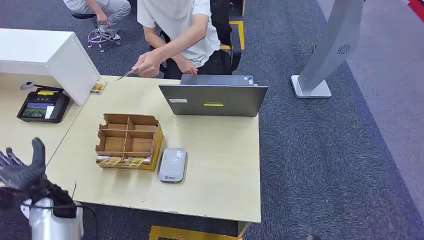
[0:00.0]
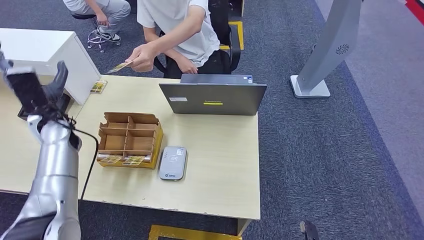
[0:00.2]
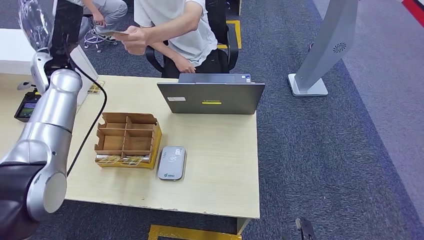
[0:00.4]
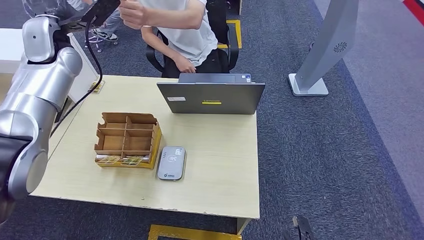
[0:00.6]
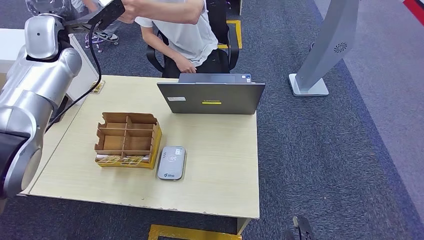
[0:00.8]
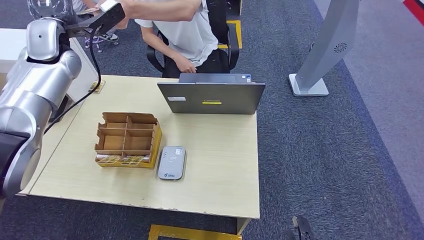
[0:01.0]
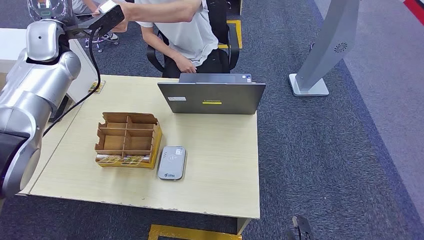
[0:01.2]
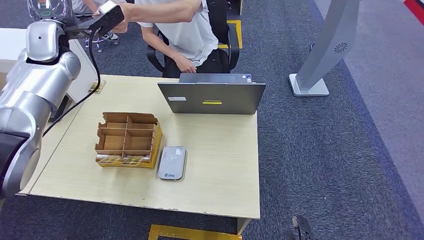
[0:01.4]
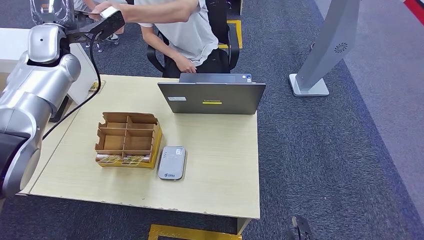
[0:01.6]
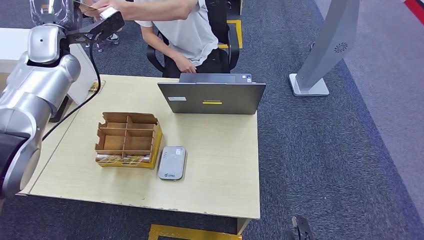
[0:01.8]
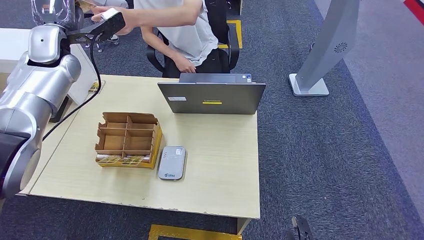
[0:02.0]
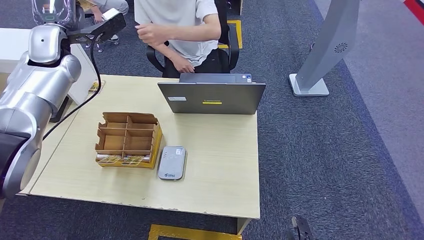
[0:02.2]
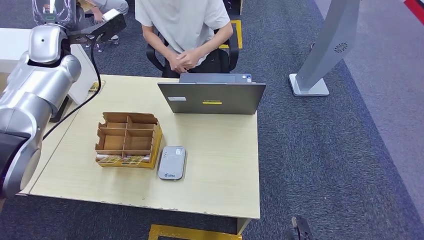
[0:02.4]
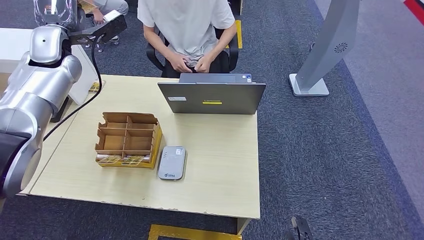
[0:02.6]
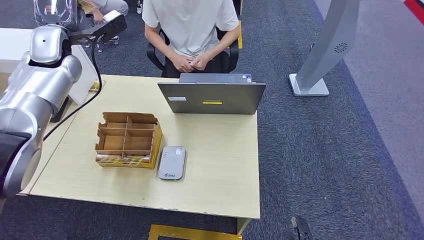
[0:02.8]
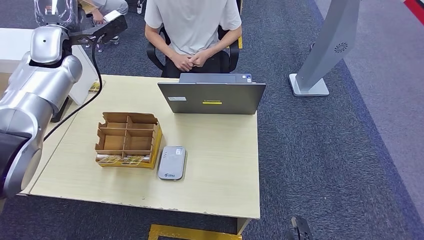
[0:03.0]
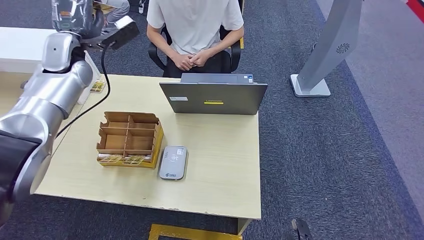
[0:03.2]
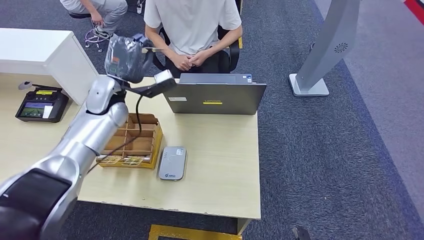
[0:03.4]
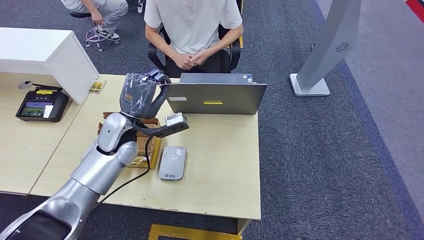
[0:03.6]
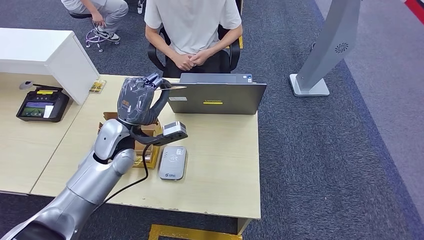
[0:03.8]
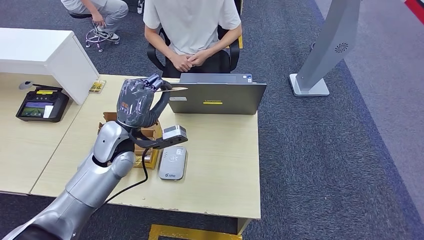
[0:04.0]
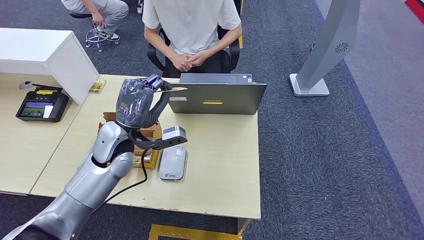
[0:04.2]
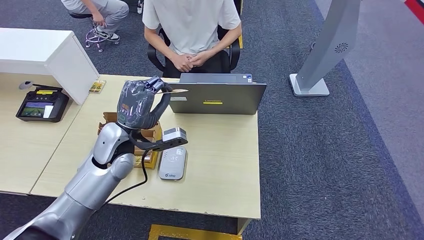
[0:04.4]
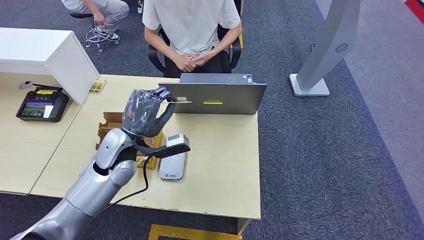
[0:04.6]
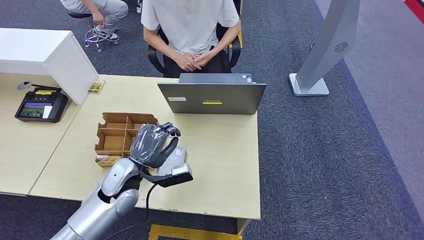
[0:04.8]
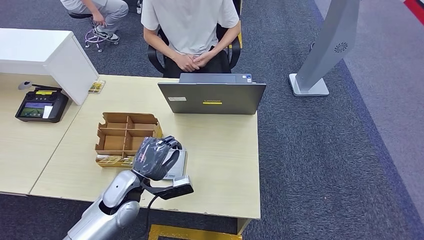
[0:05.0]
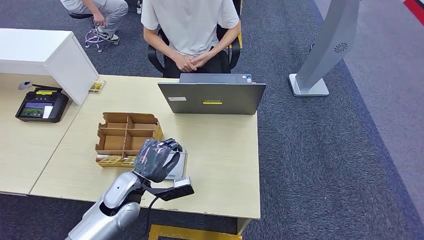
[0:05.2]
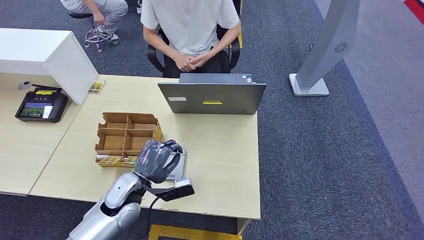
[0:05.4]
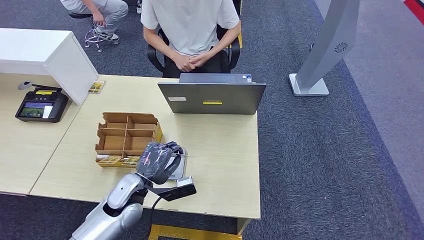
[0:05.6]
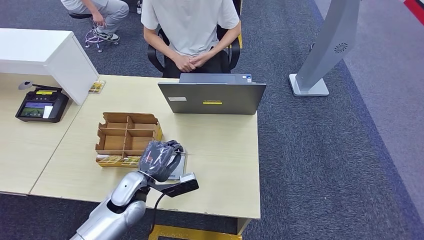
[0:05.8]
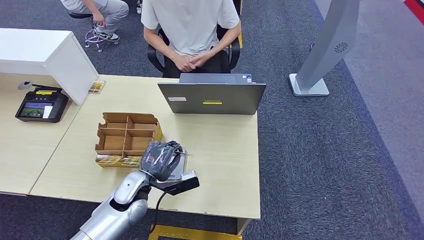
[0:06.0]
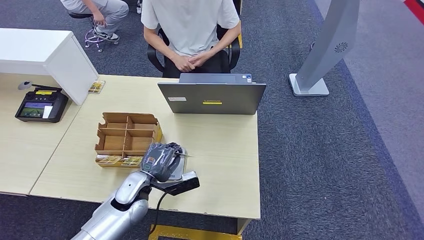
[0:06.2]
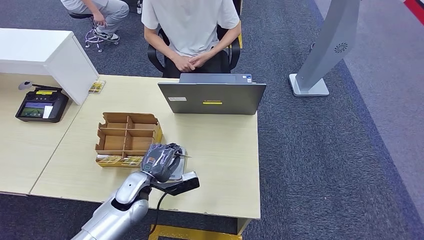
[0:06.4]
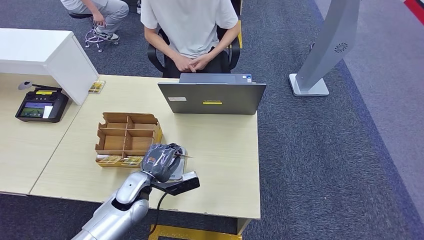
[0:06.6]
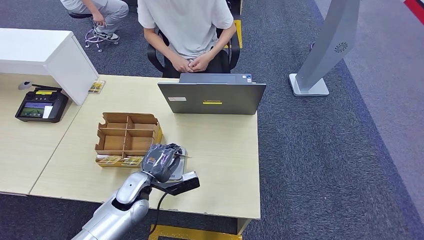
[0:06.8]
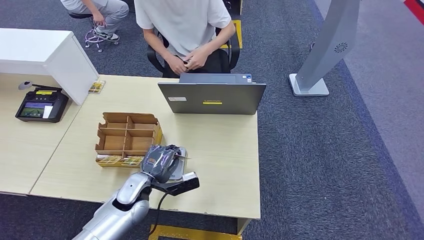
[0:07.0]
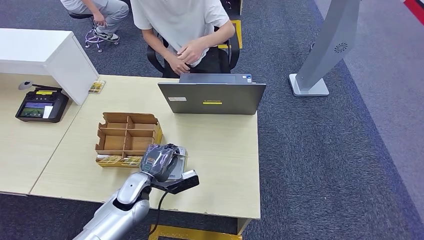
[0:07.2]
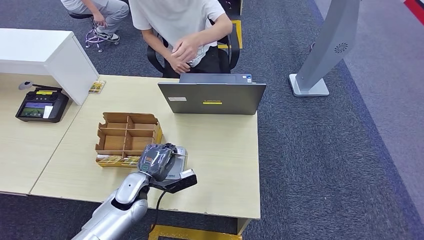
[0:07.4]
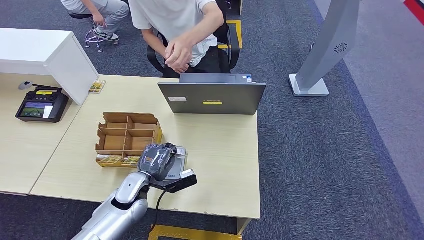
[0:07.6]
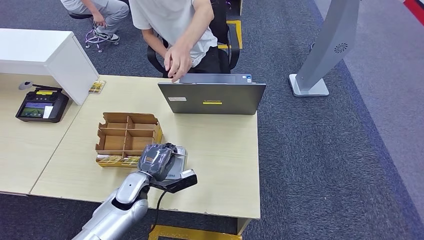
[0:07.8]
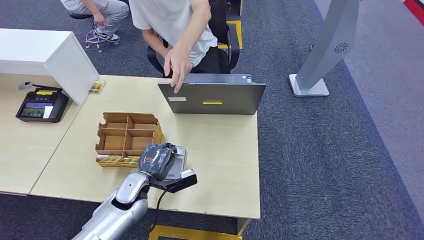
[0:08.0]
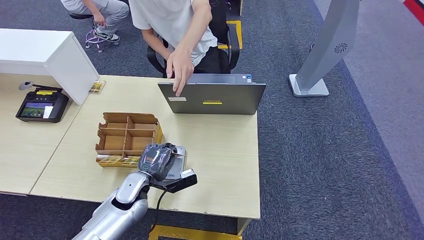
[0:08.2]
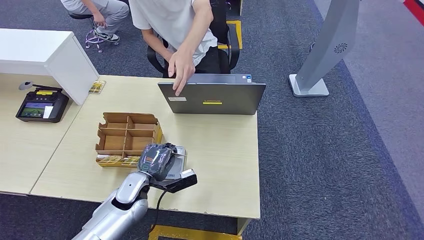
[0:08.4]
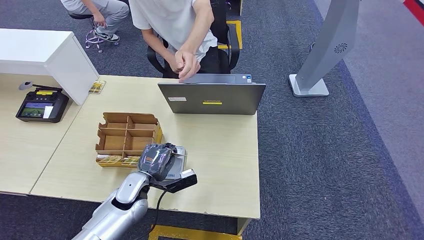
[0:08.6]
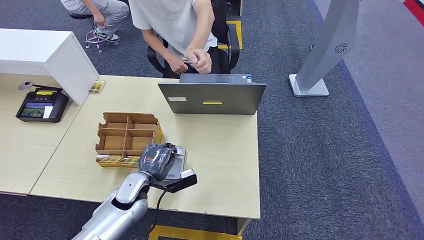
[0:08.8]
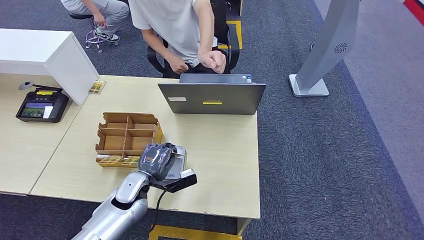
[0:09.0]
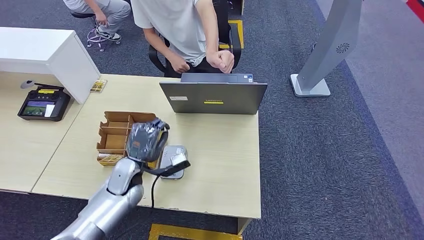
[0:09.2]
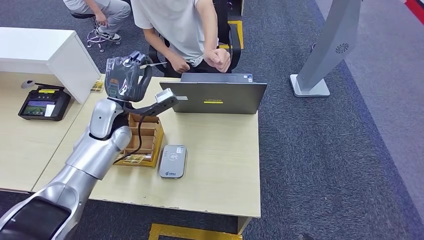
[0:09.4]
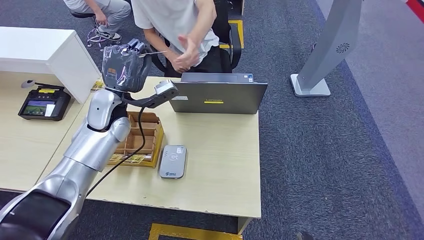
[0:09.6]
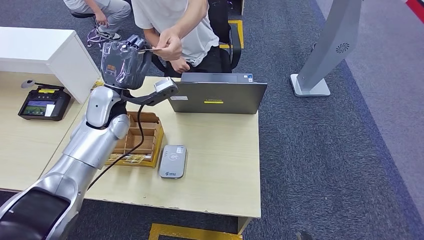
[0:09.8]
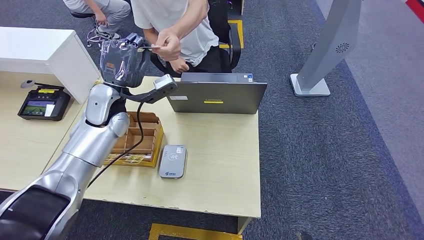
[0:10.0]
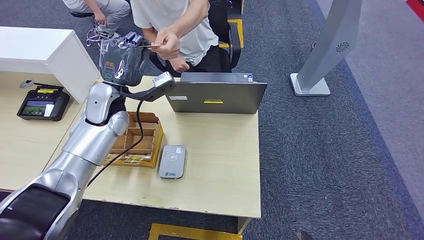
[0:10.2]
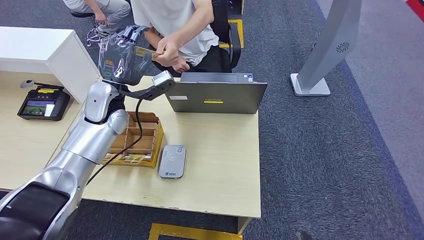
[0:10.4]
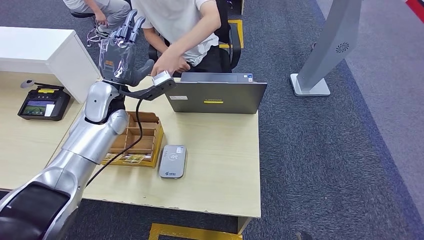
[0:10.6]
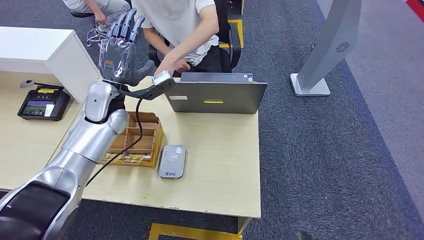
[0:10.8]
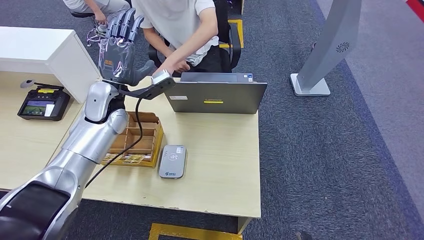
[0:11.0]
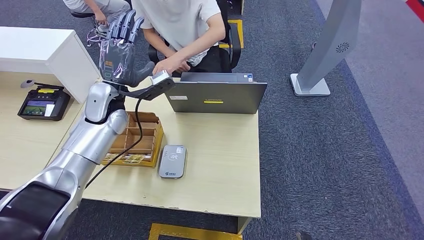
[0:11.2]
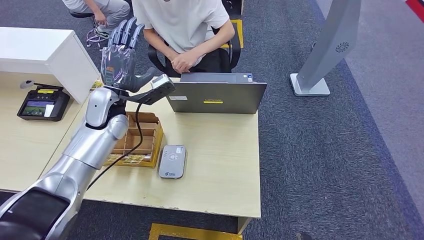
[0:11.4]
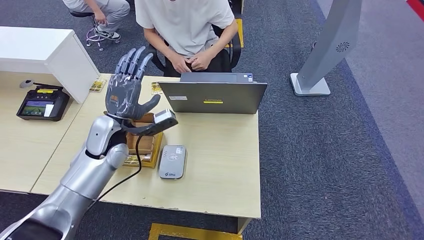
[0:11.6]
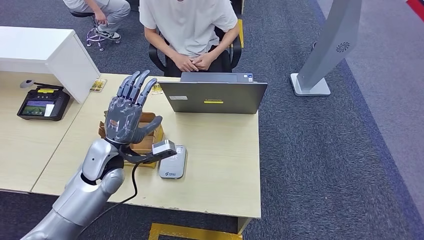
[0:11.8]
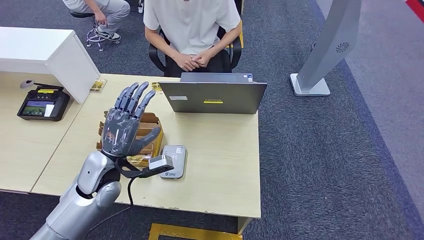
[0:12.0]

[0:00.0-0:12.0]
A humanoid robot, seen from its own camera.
Step, 0.0 to 2.8 s: Take the ID card from the person's hand.
Step, 3.0 to 8.4 s: Place the ID card on the card reader.
Step, 8.6 to 11.0 s: Hand the ID card to the person.
1.6 to 3.0 s: Both hands stay put.
3.0 to 4.4 s: The right hand moves backward, about 5 cm, while the left hand moves downward, to the right and backward, about 25 cm.
4.4 to 6.0 s: The left hand travels downward and backward by some 15 cm.
6.0 to 7.6 s: The hands stay close to where they were, moving slightly.
7.6 to 9.0 s: Neither hand changes place.
9.0 to 10.4 s: The left hand travels upward and forward by some 25 cm.
10.4 to 12.0 s: The left hand moves backward and downward, about 15 cm.

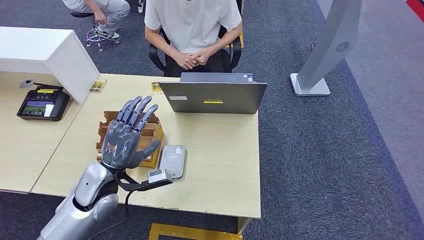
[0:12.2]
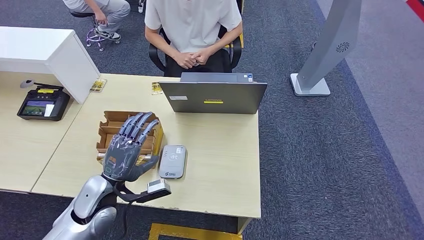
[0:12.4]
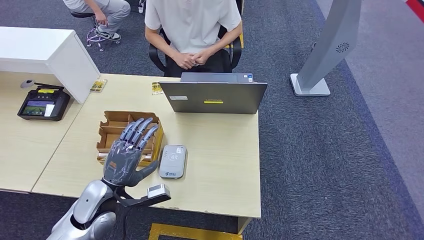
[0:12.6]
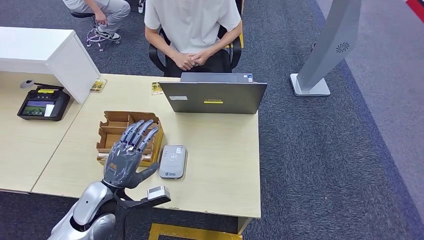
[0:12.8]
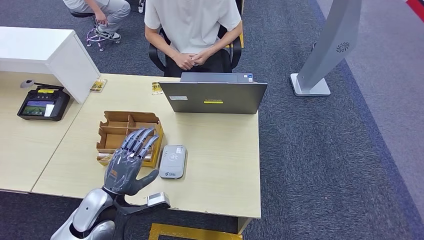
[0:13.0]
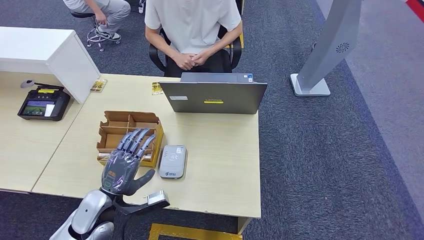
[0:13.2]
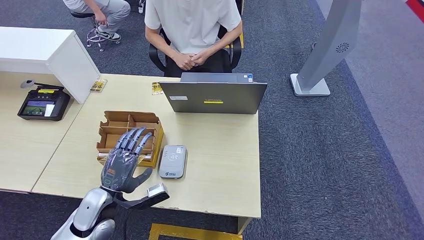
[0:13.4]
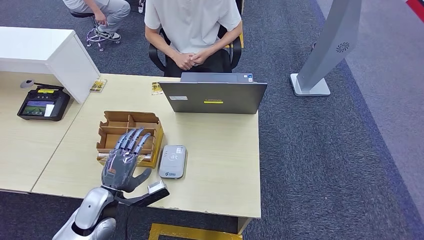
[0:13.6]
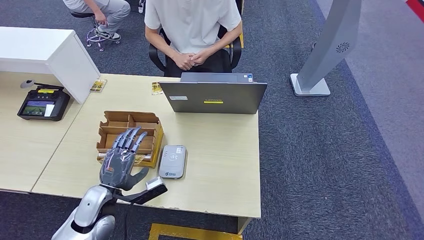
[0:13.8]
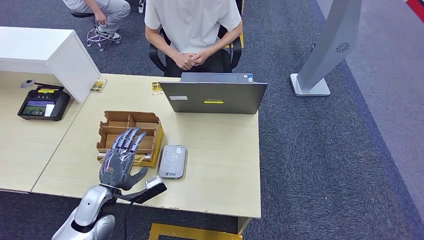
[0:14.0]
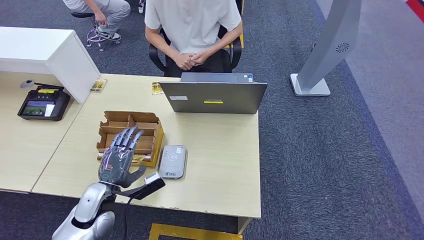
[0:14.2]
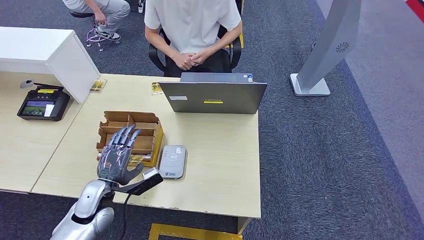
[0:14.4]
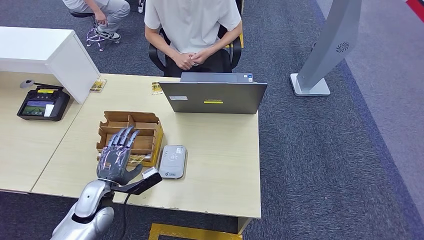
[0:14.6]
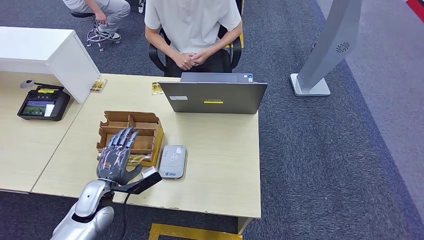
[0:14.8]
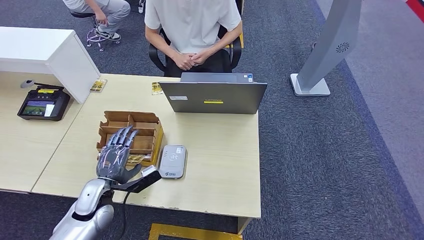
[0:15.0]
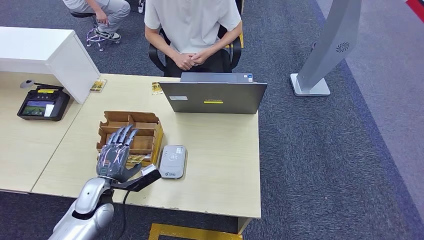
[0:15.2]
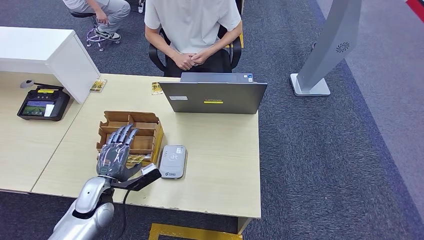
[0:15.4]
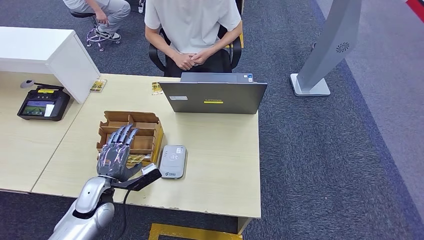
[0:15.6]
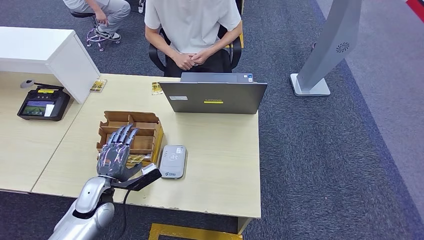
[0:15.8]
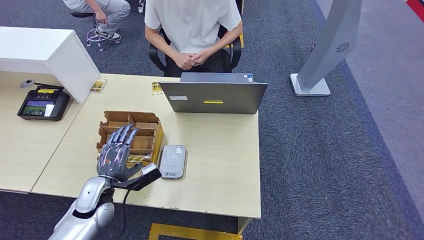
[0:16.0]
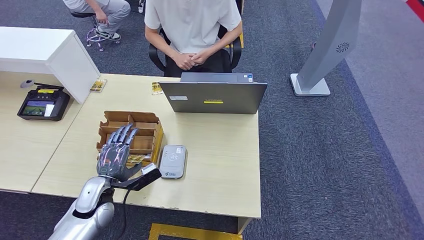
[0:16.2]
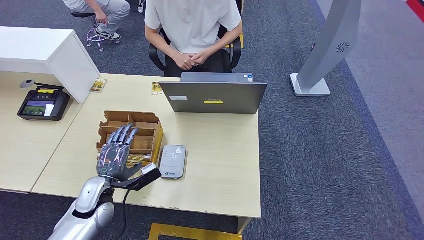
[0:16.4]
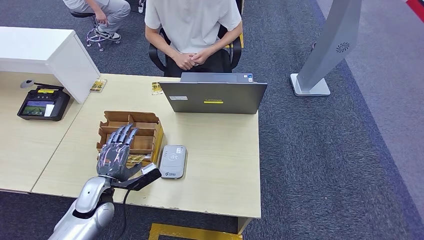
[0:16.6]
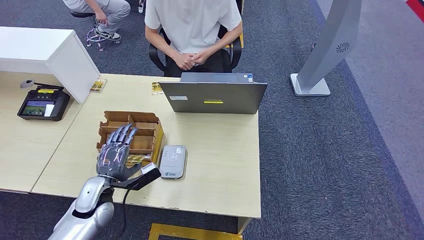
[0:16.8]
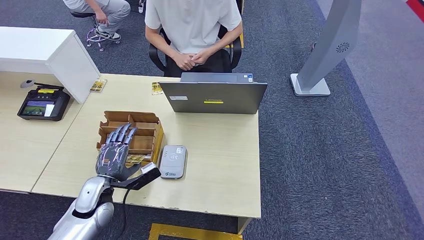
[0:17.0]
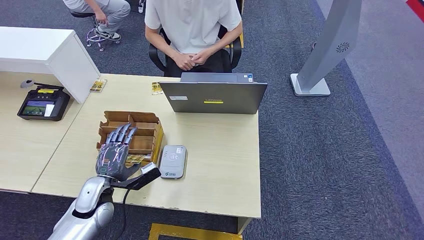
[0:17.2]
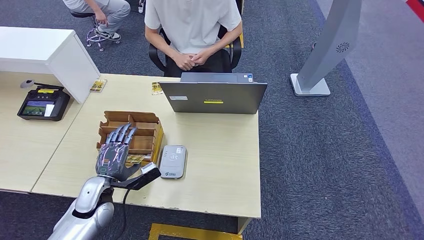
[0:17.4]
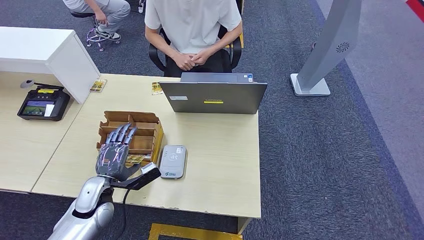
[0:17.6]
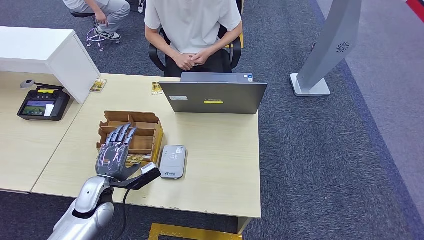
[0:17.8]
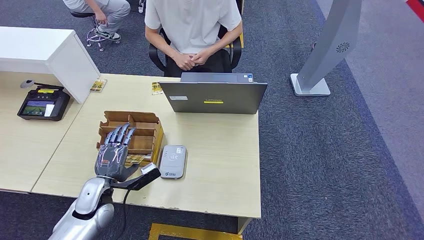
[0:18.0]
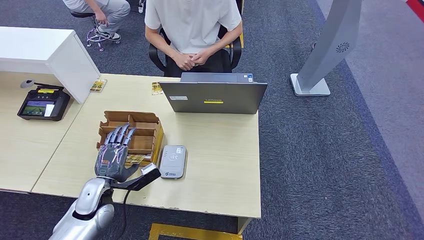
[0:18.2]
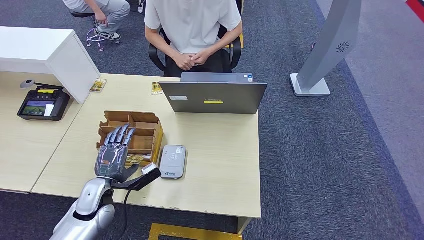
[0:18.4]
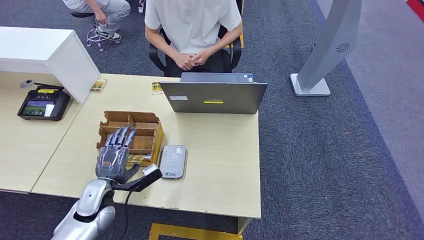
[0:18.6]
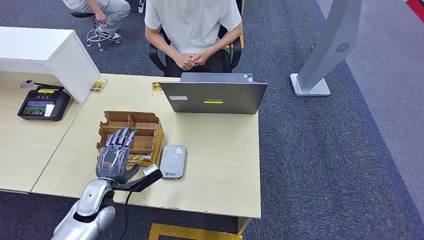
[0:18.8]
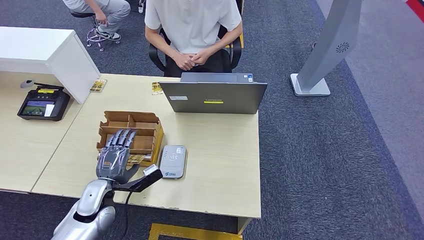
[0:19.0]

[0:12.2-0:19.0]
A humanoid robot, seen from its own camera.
12.2 to 13.6 s: The left hand goes approximately 5 cm downward.
13.6 to 15.0 s: The hands move only a little.
15.0 to 17.6 s: Both hands stay put.
17.6 to 19.0 s: Both hands stay put.
